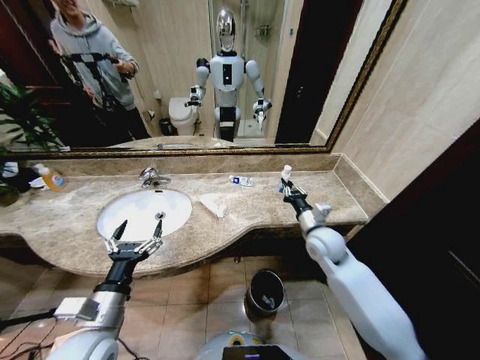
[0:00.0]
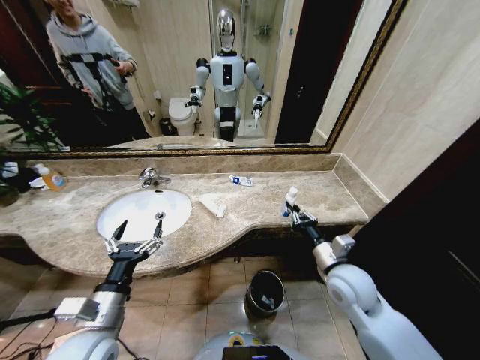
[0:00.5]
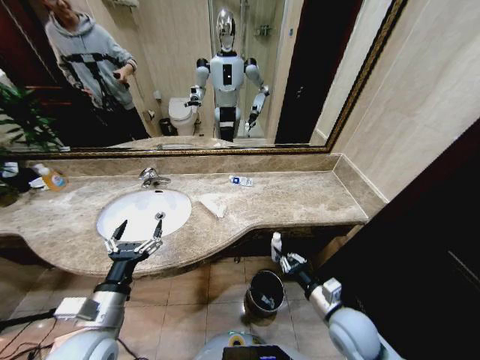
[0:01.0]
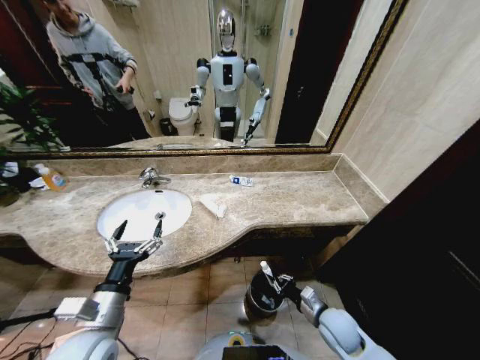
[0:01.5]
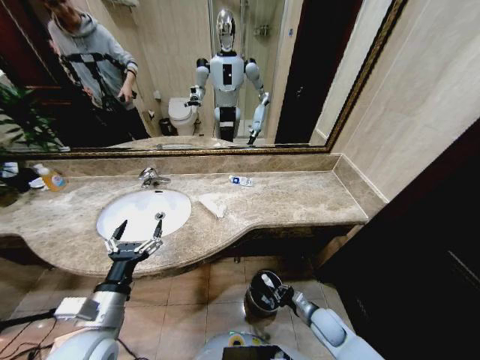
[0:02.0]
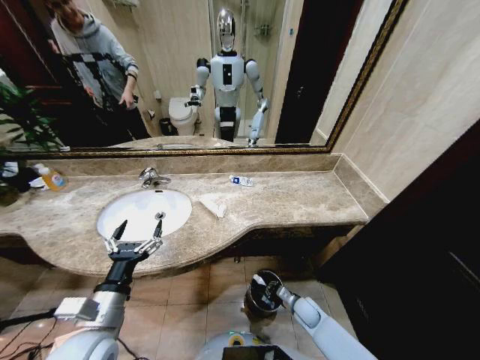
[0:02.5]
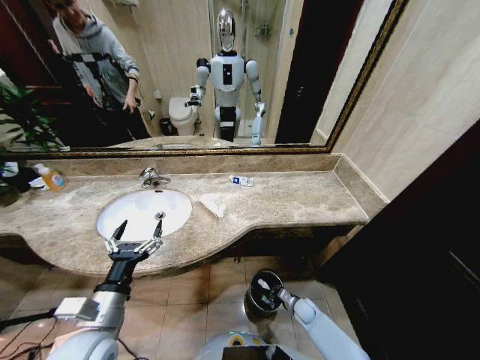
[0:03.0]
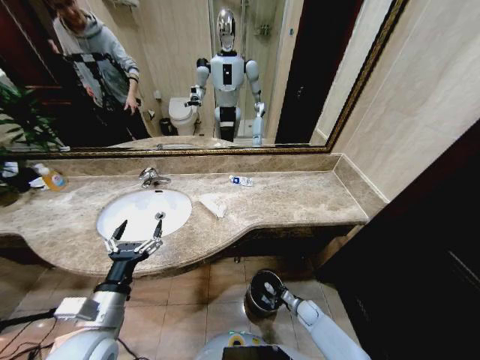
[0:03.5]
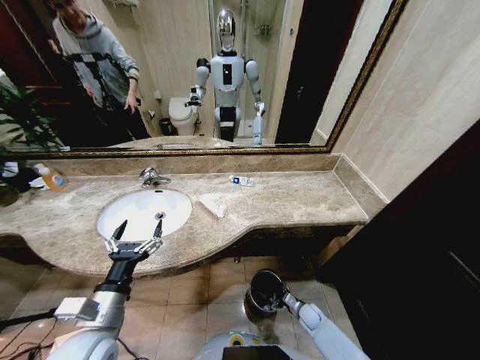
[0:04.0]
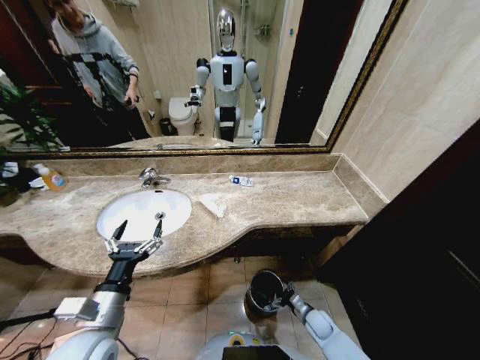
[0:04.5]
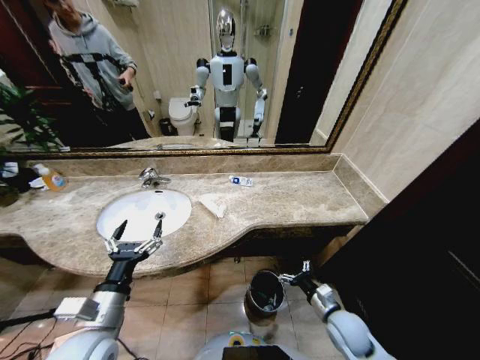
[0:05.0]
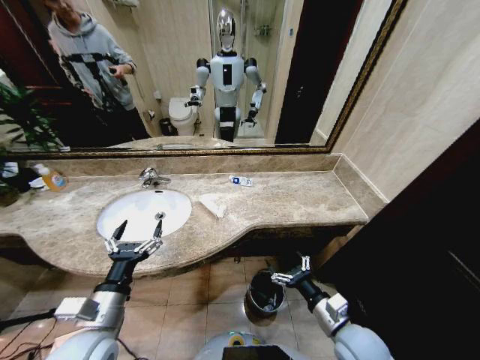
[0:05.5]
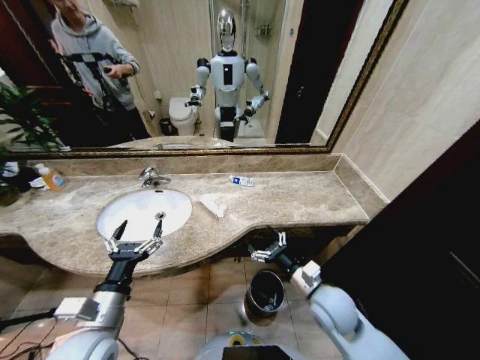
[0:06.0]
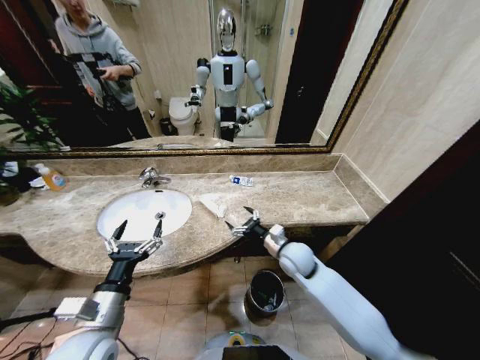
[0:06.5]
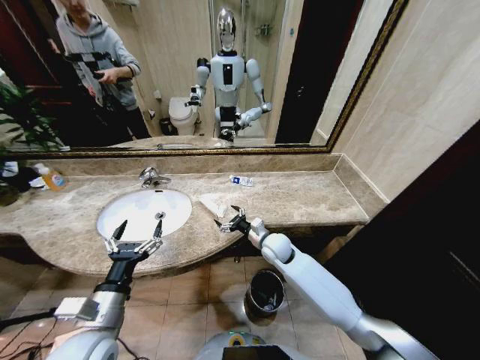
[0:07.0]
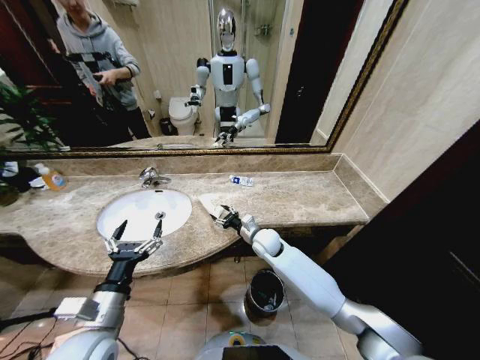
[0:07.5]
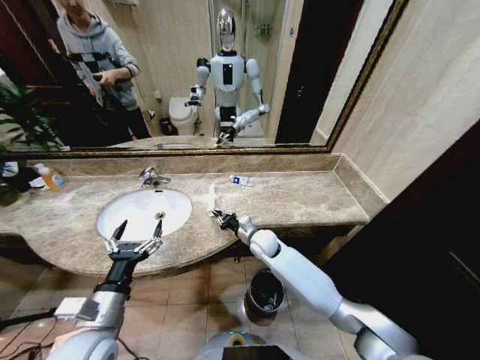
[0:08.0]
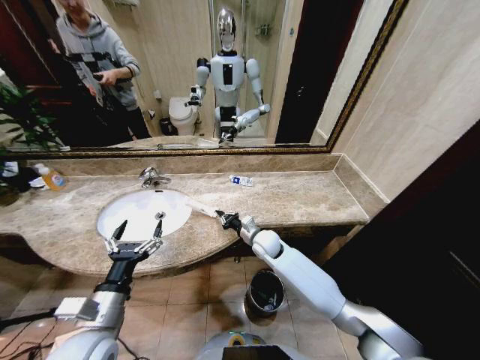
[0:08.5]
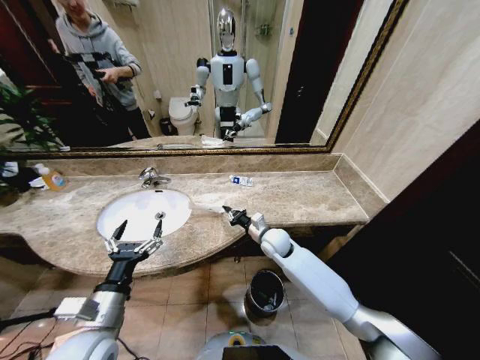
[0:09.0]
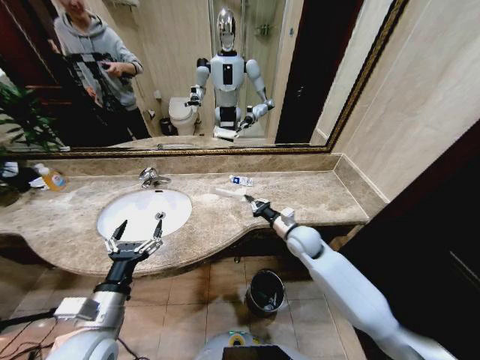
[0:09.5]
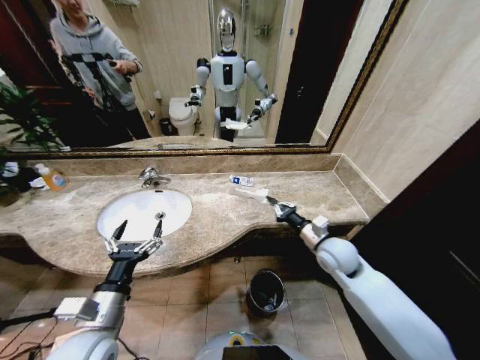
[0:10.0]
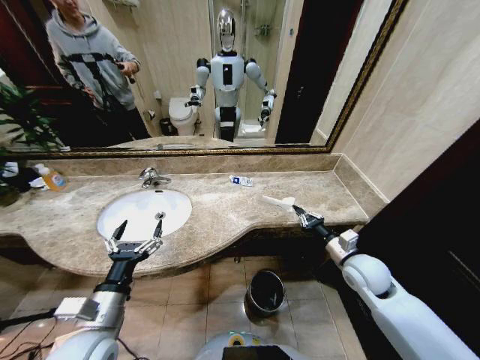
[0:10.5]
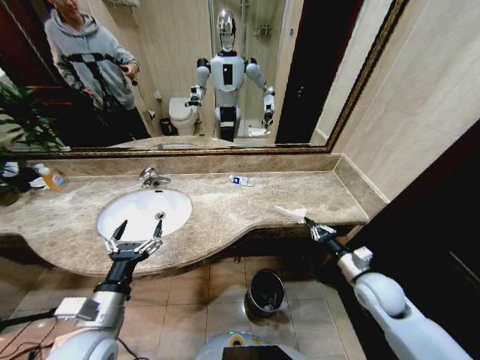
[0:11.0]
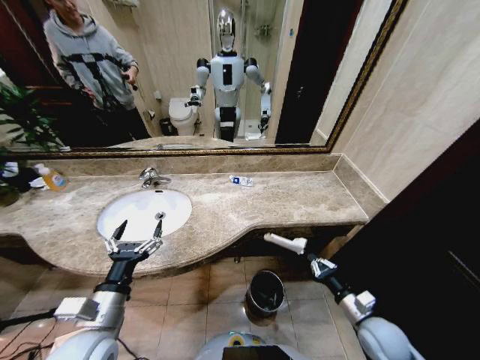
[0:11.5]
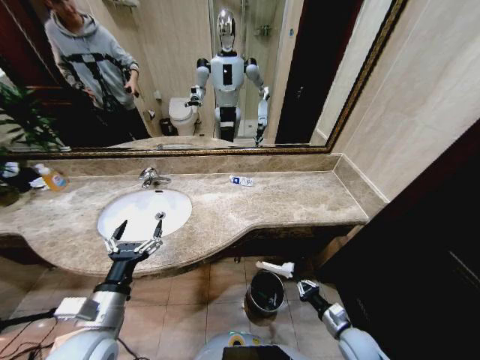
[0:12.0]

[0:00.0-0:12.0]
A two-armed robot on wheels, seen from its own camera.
Task of the whole recording: Pick up the trash from the sink and place it in the trash bin.
0:00.0 to 0:02.0: The right gripper moves downward and backward, about 30 cm.
0:02.0 to 0:04.0: The right gripper goes about 10 cm downward, and opens up.
0:04.0 to 0:06.0: The right gripper goes approximately 35 cm upward.
0:06.0 to 0:08.0: The right gripper is displaced forward and to the left by some 25 cm, and closes up.
0:08.0 to 0:10.0: The right gripper goes some 20 cm to the right, backward and upward.
0:10.0 to 0:12.0: The right gripper travels downward and backward by some 30 cm.

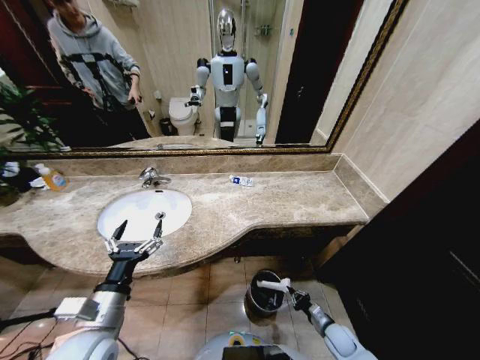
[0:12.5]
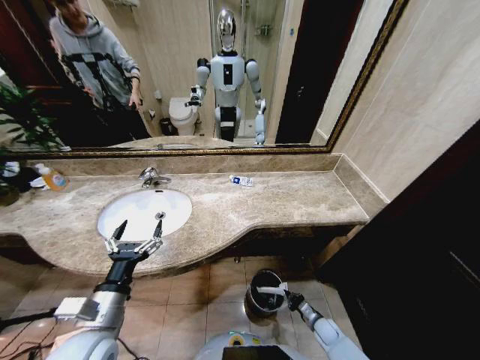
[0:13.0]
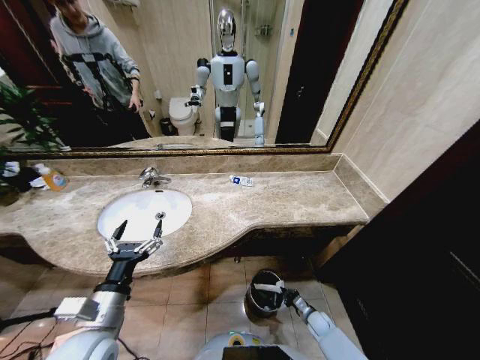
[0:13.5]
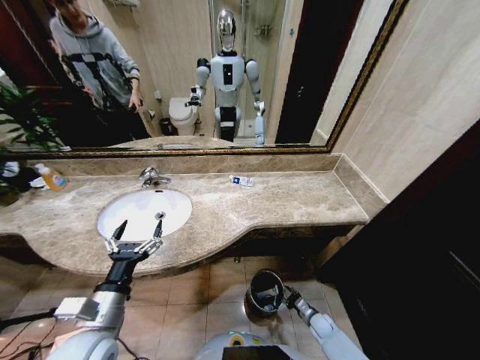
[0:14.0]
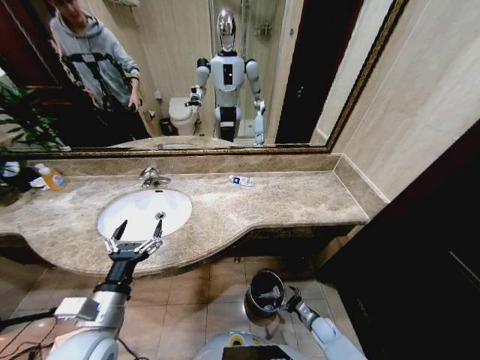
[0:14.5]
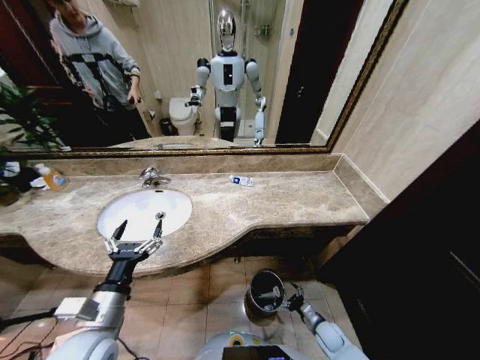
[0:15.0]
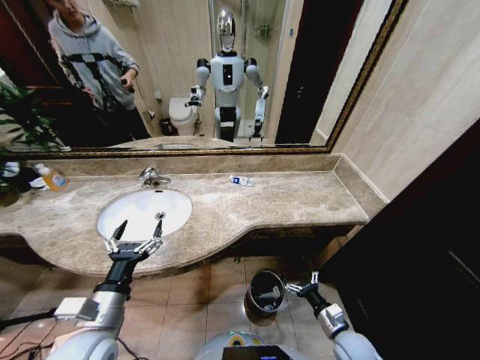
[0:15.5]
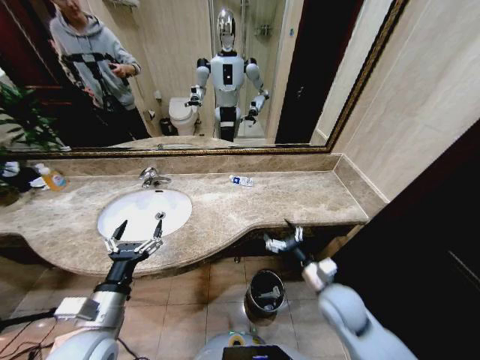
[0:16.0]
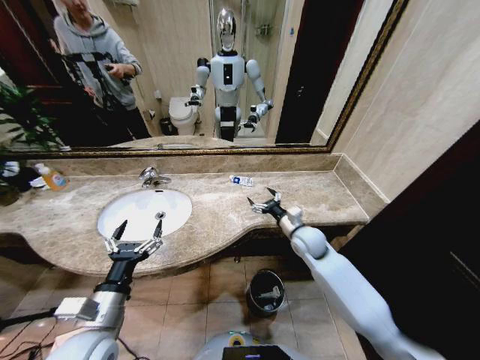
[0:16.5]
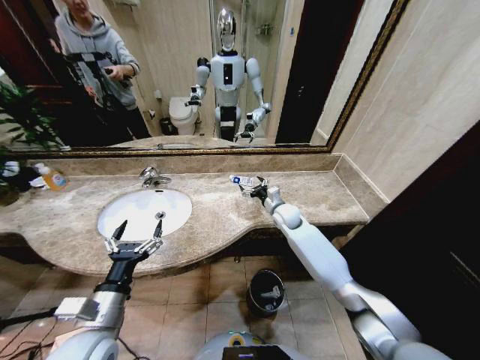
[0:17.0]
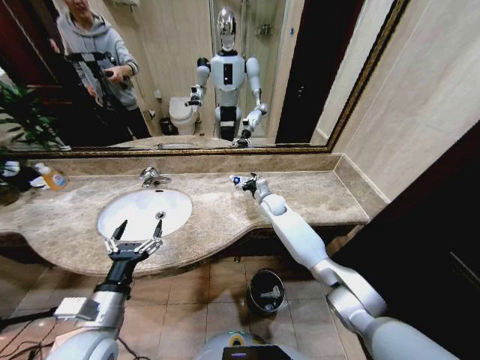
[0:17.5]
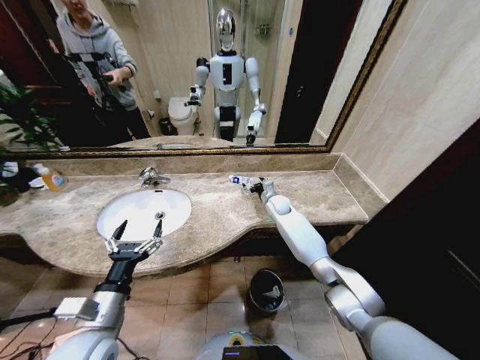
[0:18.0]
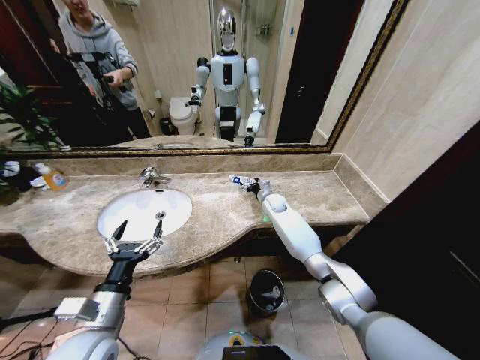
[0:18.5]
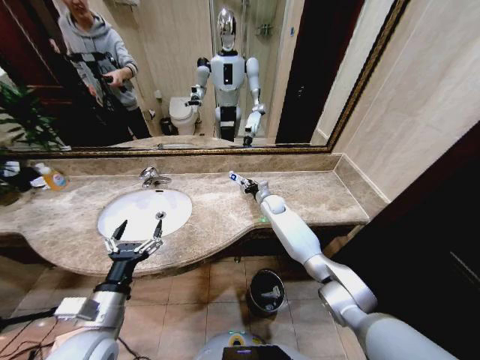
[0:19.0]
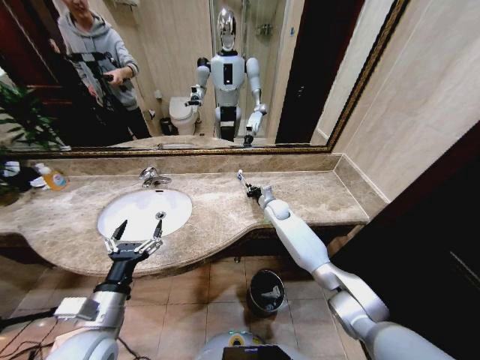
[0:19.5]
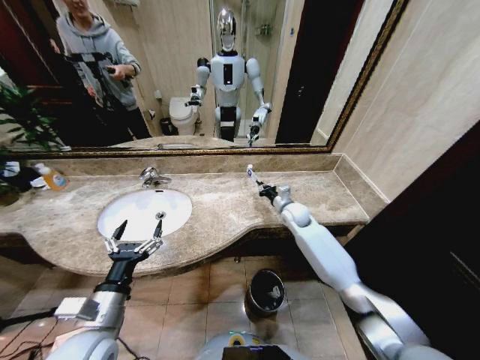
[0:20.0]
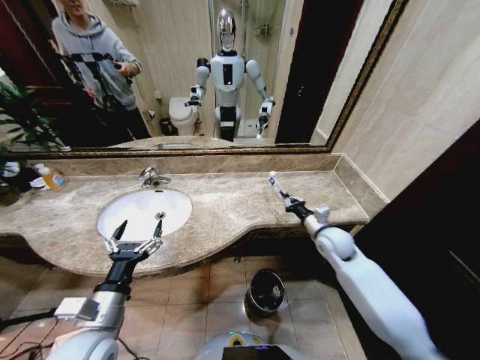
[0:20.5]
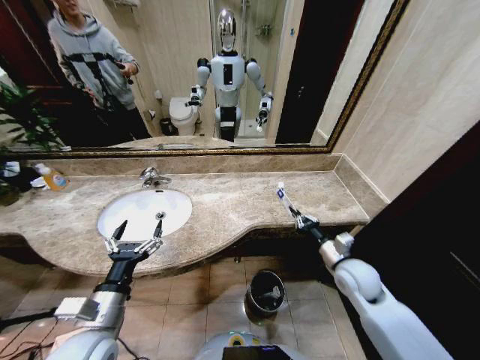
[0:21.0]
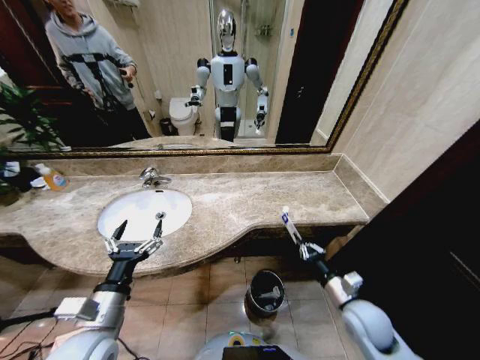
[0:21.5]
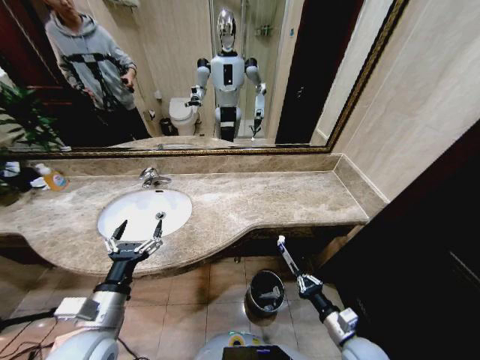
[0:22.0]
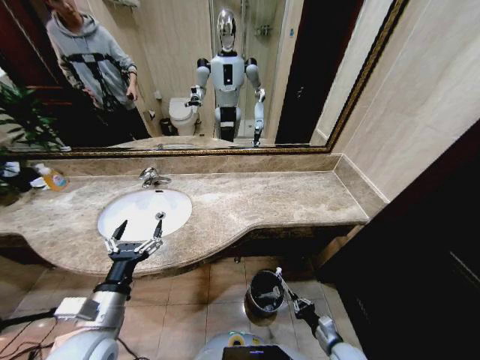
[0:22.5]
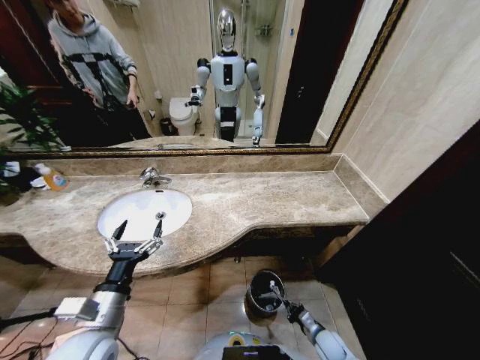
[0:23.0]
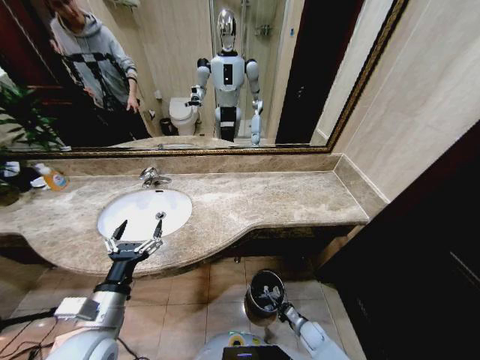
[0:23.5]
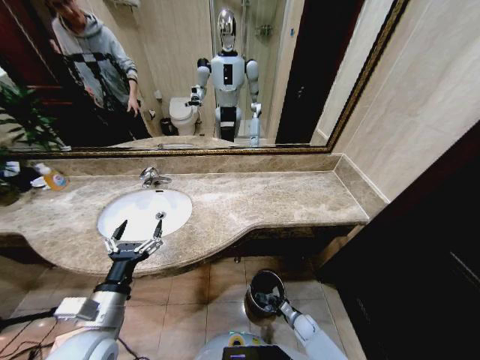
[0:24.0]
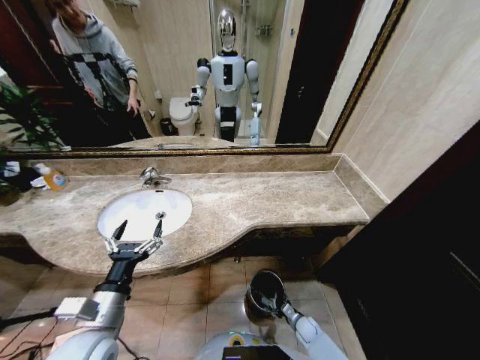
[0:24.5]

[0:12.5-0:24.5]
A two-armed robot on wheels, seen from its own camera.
Task of the whole recording: Pick up the trash from the sink and place it in the trash bin.
0:12.5 to 0:14.5: The right gripper moves downward, approximately 5 cm, and opens its fingers.
0:14.5 to 0:16.5: The right gripper travels upward and forward by about 40 cm.
0:16.5 to 0:18.5: The right gripper moves forward, approximately 20 cm.
0:18.5 to 0:20.5: The right gripper goes approximately 25 cm backward and to the right, and closes.
0:20.5 to 0:22.5: The right gripper shifts roughly 35 cm downward and backward.
0:22.5 to 0:24.5: The right gripper travels downward and forward by about 15 cm, and opens its fingers.

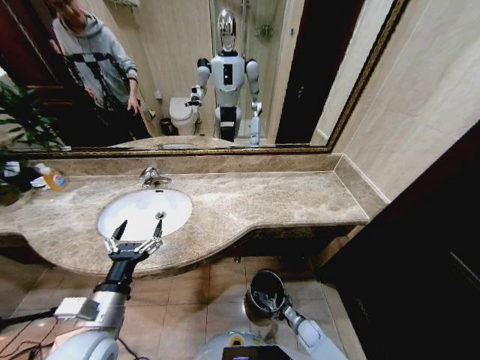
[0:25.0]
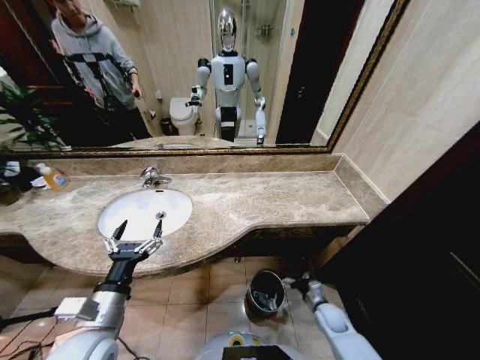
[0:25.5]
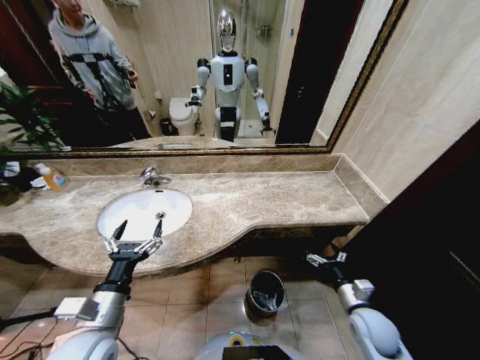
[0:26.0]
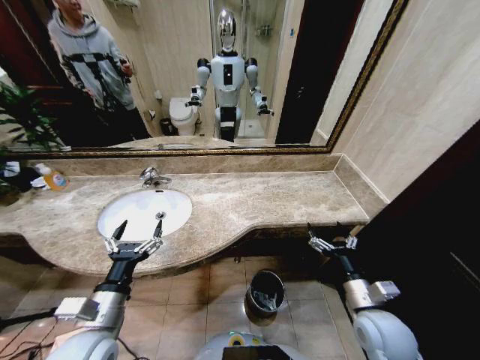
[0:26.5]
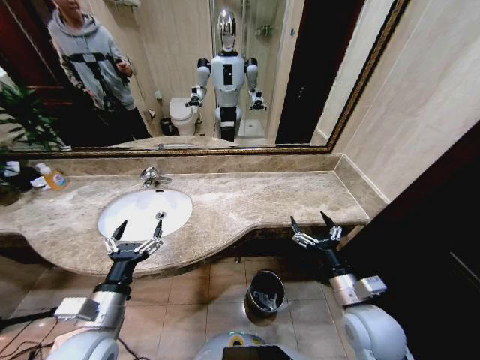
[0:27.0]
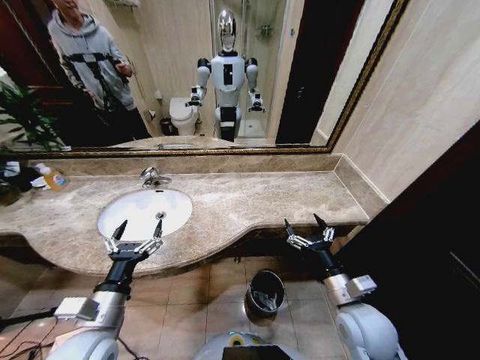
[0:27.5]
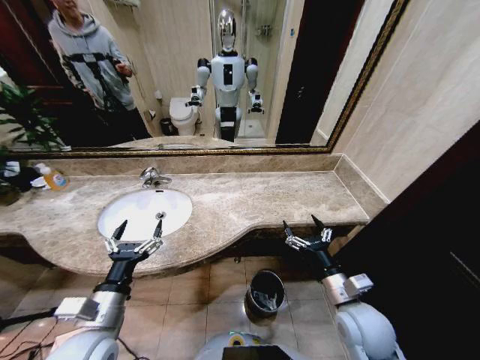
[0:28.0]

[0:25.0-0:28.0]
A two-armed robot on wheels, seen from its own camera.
Task of the whole recording: Pick up the trash from the sink and place it in the trash bin.
0:25.0 to 0:26.5: The right gripper travels upward by about 35 cm.
0:26.5 to 0:28.0: The grippers stay close to where they were, moving slightly.
